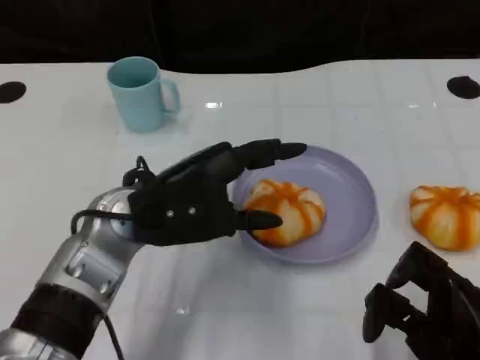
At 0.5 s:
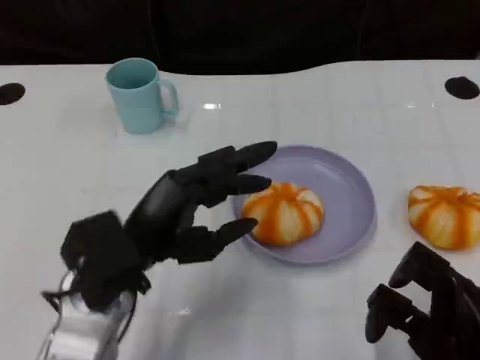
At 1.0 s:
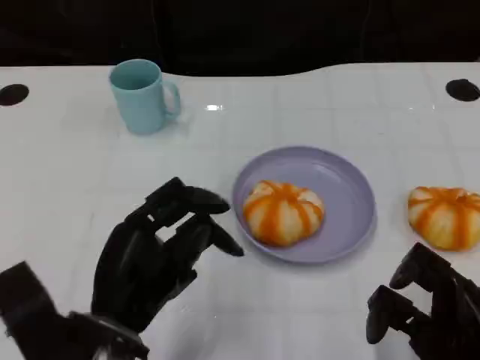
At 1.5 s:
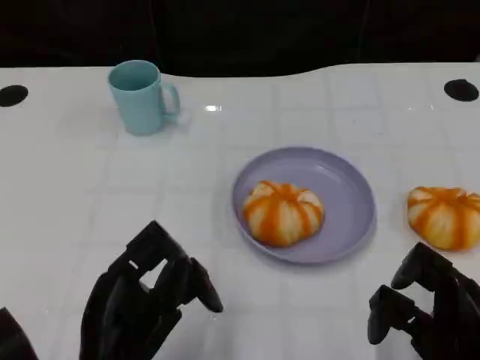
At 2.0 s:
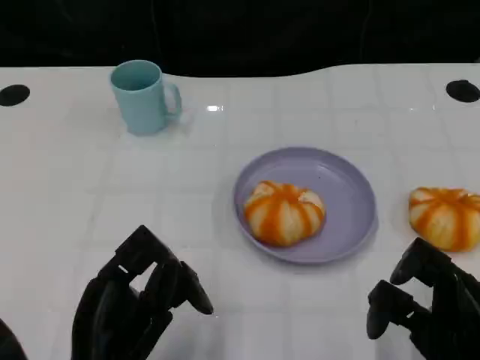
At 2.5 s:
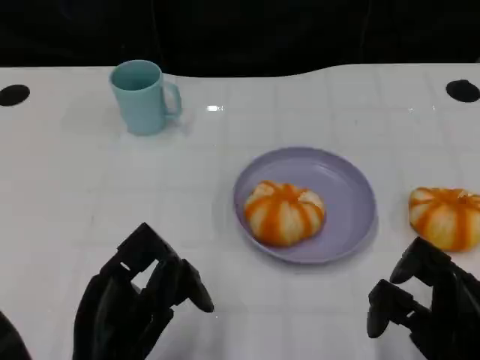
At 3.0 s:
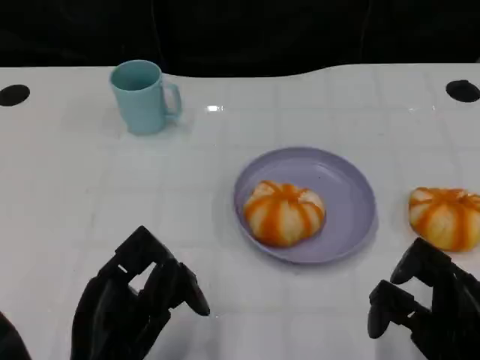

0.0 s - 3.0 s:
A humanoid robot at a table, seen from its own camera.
Task of the whole recording: Grasp the bread from the table and place it into the plate.
0.0 s - 1.5 s: The left hand goes roughly 15 cm backward and downward.
1.5 s - 3.0 s: The two hands keep their place.

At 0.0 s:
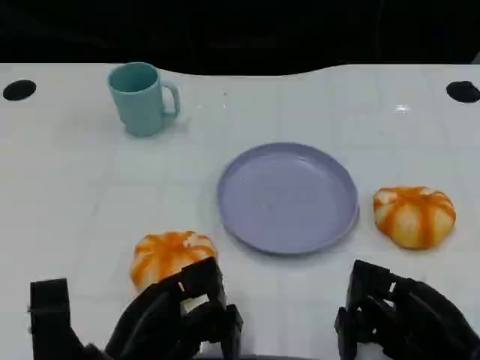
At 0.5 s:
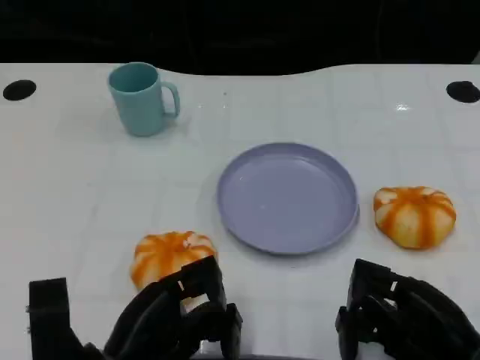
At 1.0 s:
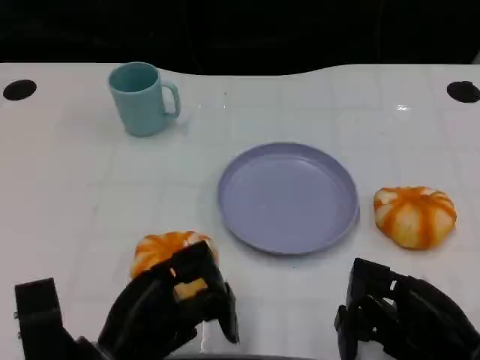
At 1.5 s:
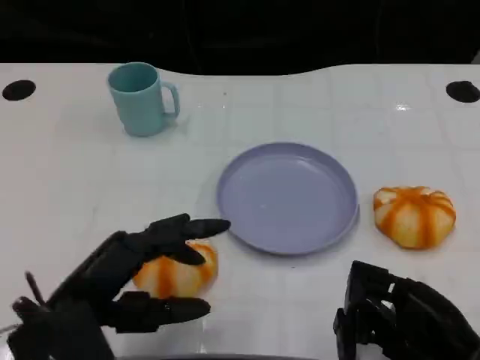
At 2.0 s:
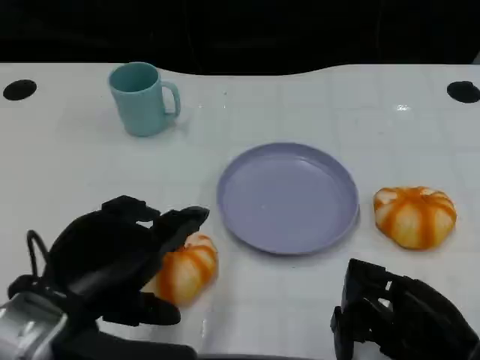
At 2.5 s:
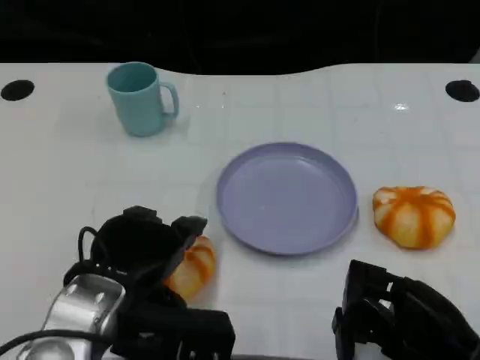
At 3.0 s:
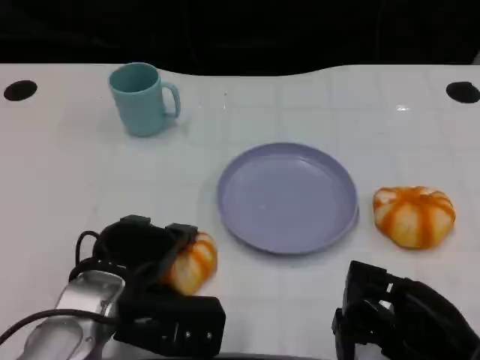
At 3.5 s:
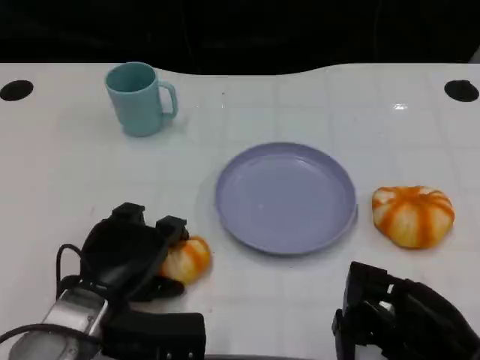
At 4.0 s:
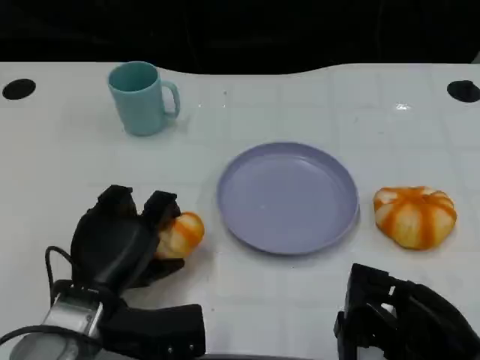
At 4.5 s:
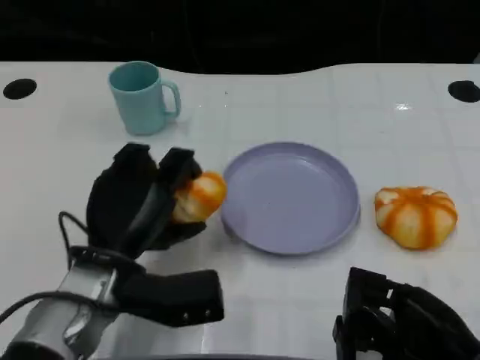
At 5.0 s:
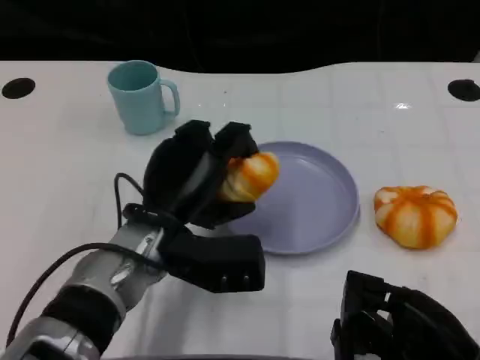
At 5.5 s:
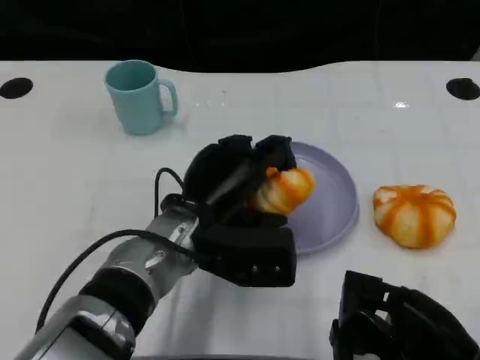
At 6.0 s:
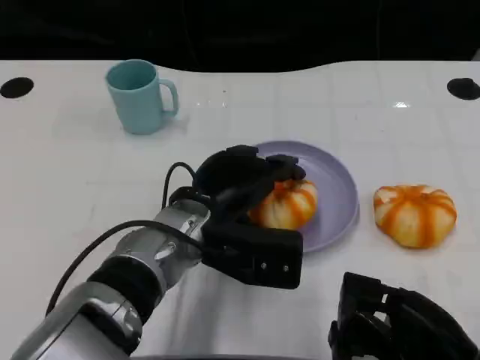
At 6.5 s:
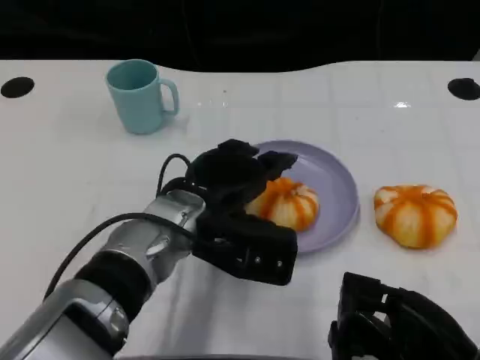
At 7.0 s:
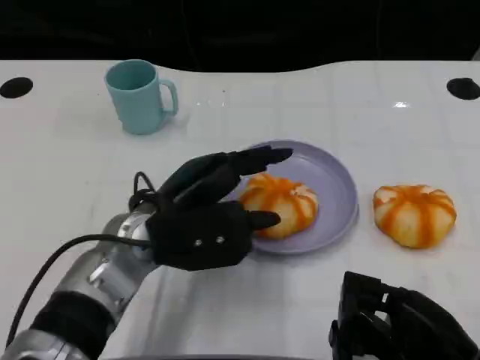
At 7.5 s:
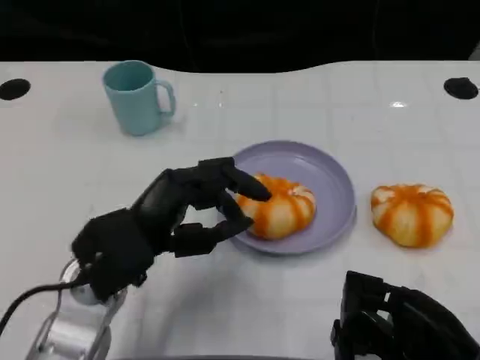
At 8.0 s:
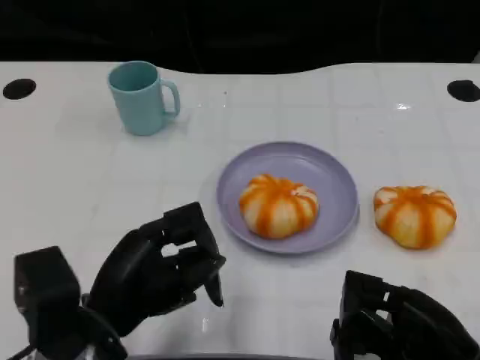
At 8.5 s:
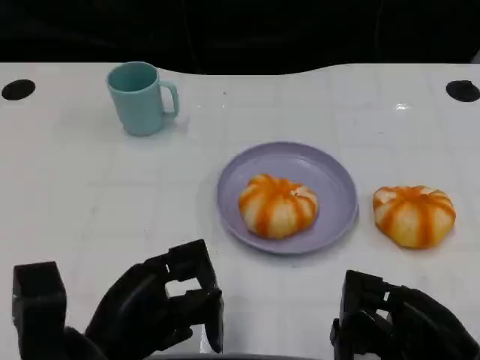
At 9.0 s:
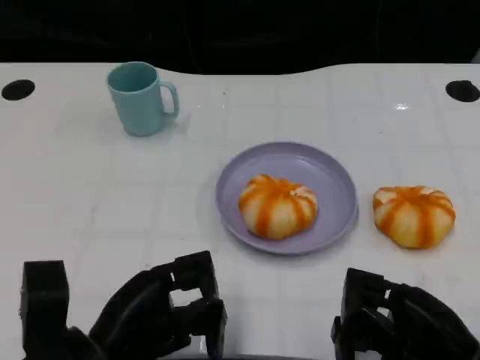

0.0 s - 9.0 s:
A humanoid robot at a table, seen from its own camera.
Task of the whole recording: Grasp the bread from the table and place it into the plate.
0.0 s - 2.0 s: The left hand moves upward, roughly 10 cm.
2.0 s - 4.5 s: The left hand travels forward and downward by roughly 10 cm.
7.0 s - 9.0 s: The left hand heads backward, to the left and downward, covering roughly 15 cm.

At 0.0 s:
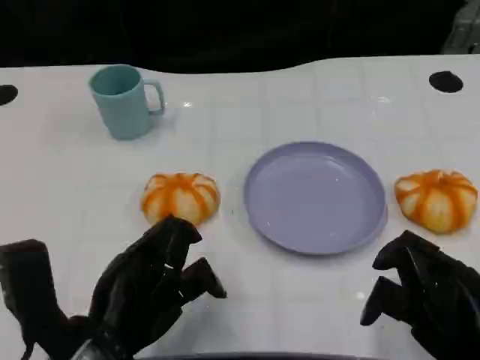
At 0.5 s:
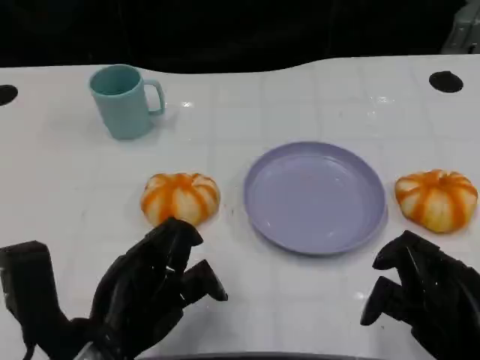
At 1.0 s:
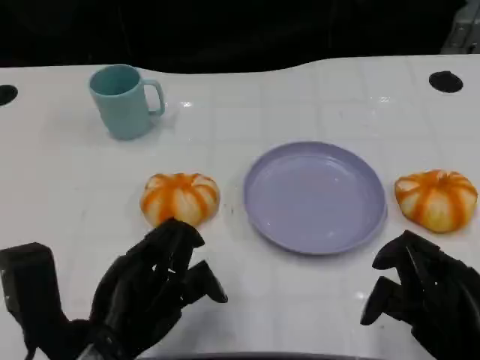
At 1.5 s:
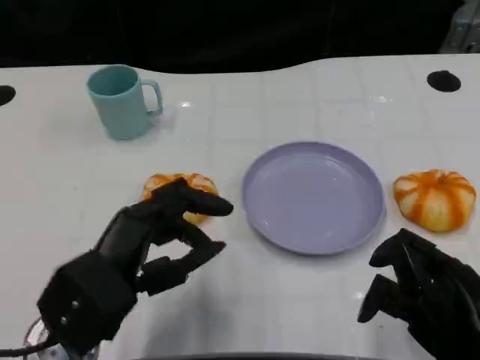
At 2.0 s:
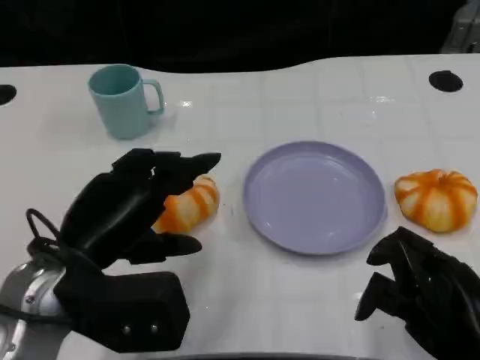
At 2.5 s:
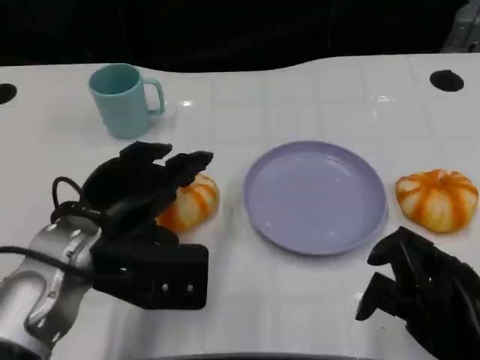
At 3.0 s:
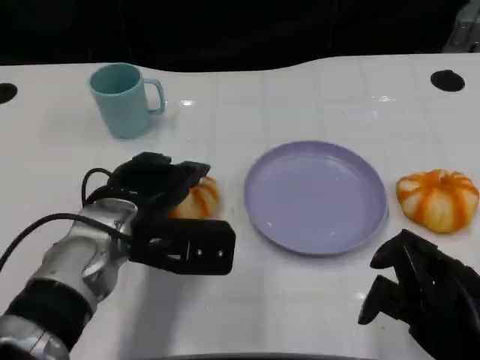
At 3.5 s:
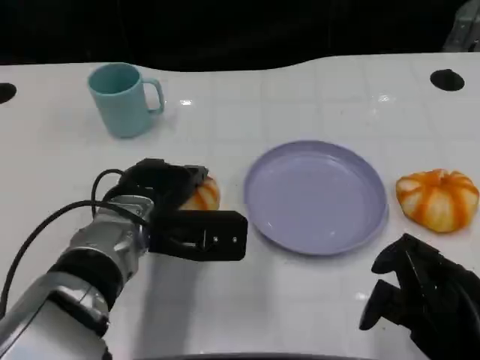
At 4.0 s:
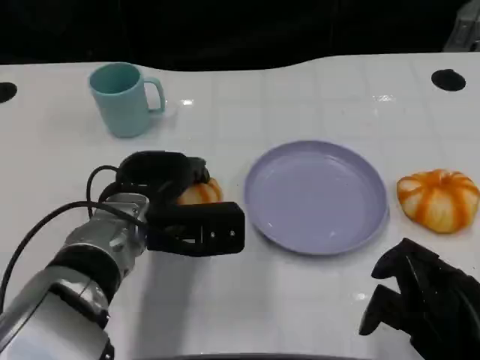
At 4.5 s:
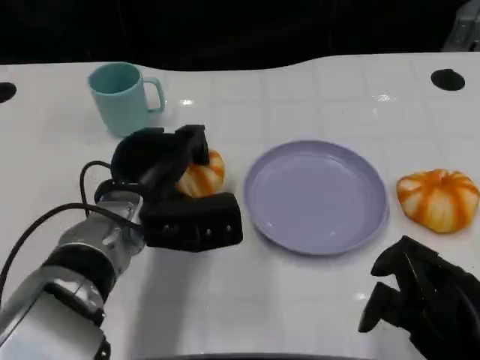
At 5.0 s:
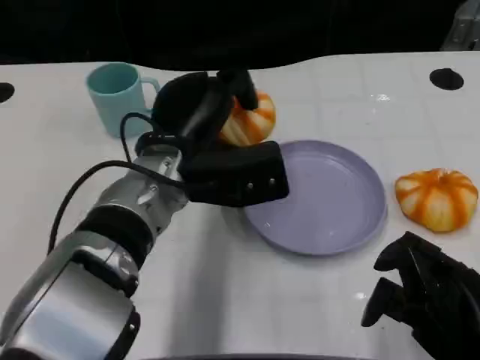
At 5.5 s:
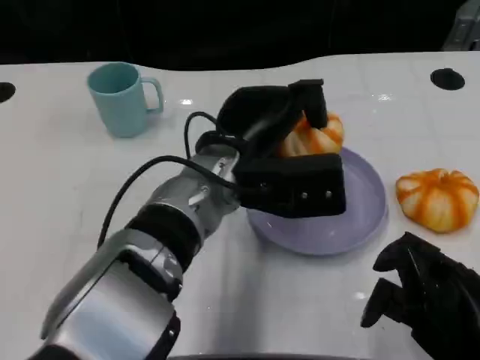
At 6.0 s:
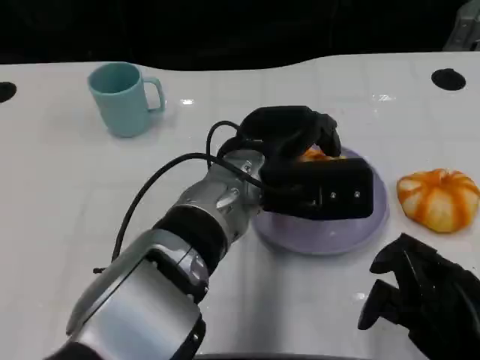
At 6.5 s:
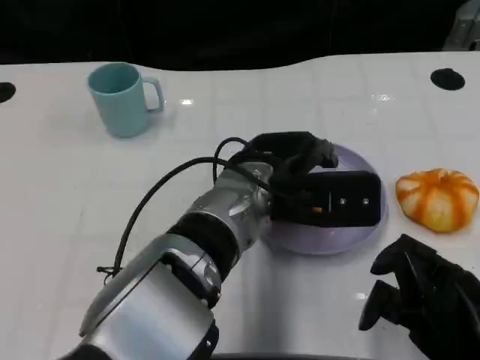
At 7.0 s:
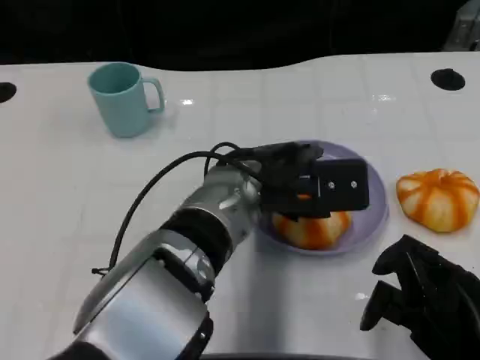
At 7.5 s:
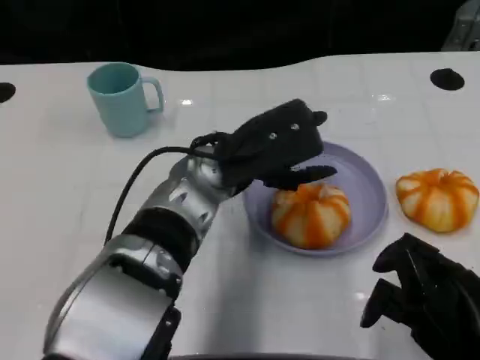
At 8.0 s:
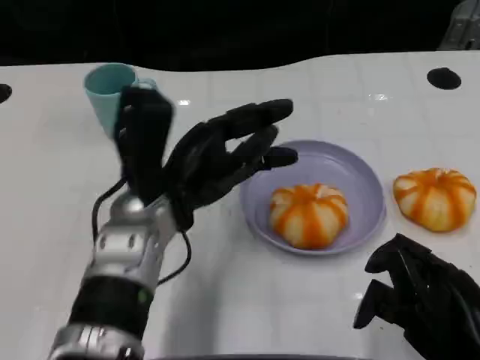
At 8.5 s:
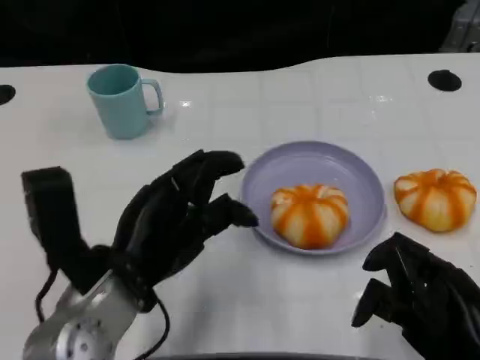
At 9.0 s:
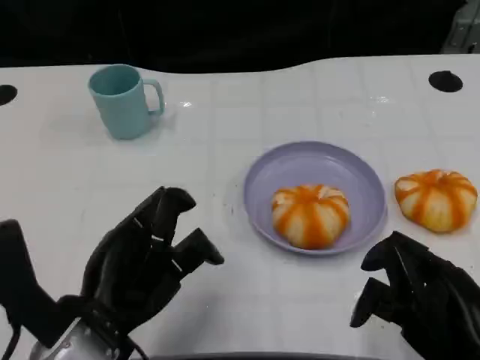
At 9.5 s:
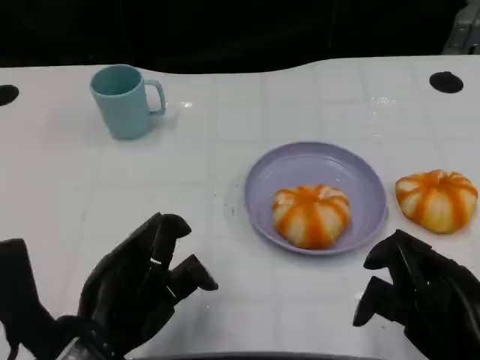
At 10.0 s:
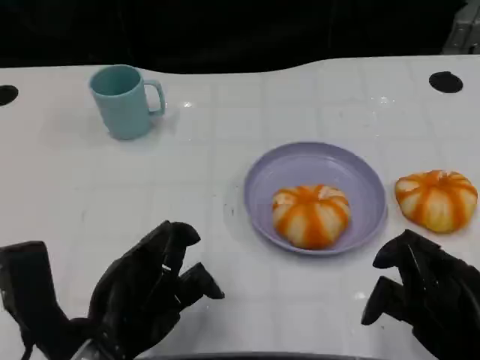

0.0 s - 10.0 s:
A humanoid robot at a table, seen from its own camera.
Task of the whole recording: Grasp the bread from the table and place it into the plate.
0.0 s - 2.0 s: The left hand ends up about 5 cm from where it was.
2.0 s - 4.0 s: The left hand goes roughly 10 cm forward, to the right and downward.
4.0 s - 6.0 s: The left hand shifts approximately 15 cm to the right and upward.
6.0 s - 8.0 s: The left hand shifts approximately 10 cm to the left.
8.0 s - 10.0 s: The left hand heads backward and to the left, covering some 15 cm.

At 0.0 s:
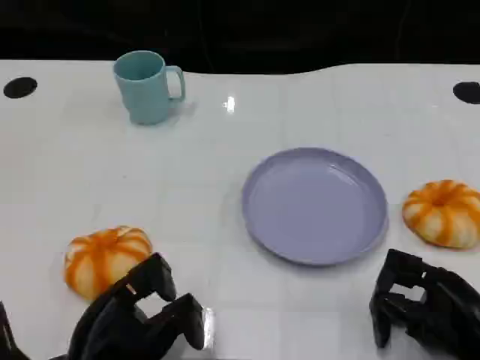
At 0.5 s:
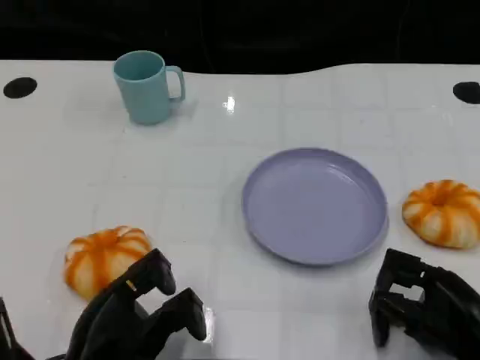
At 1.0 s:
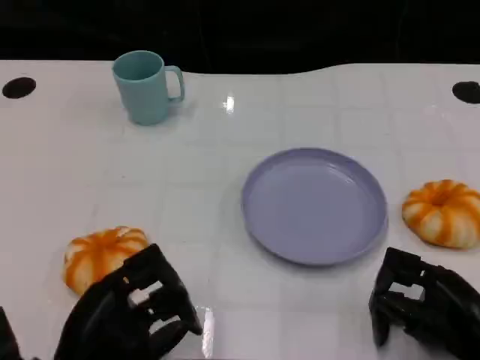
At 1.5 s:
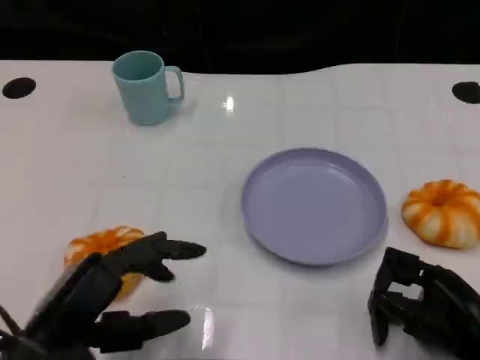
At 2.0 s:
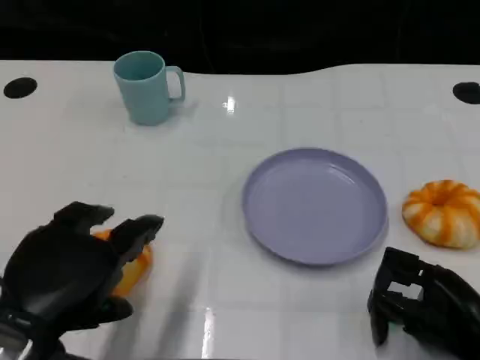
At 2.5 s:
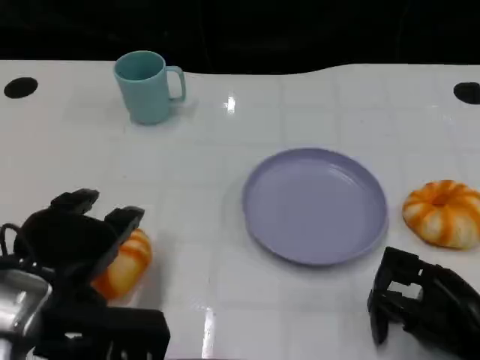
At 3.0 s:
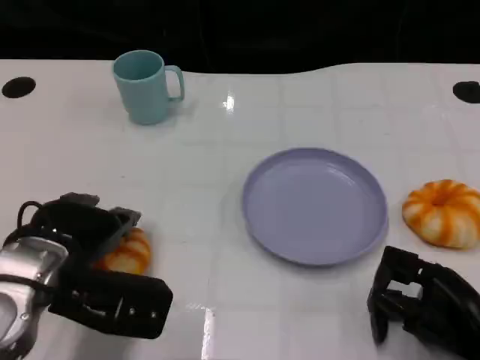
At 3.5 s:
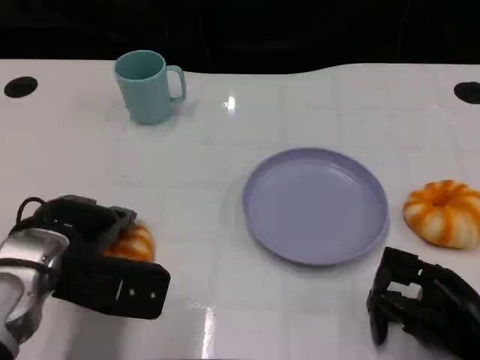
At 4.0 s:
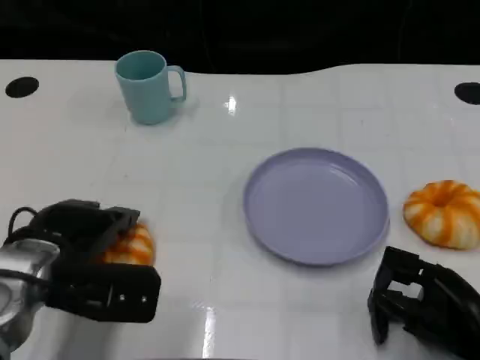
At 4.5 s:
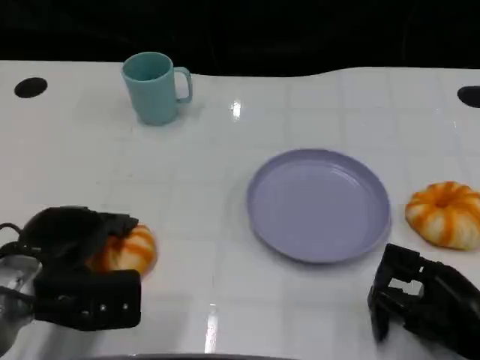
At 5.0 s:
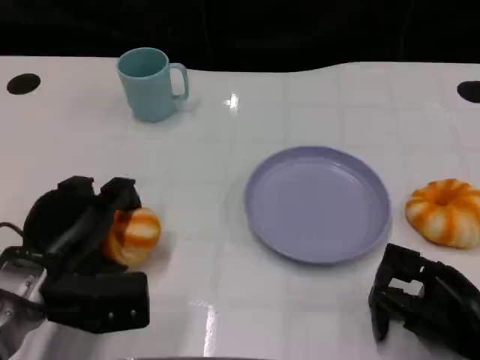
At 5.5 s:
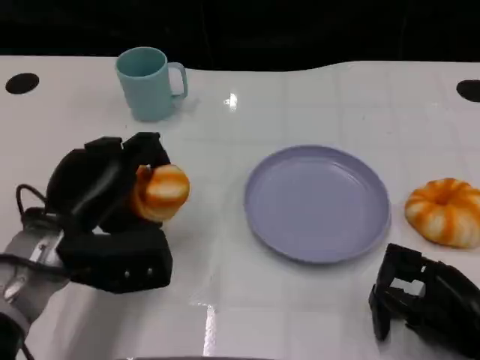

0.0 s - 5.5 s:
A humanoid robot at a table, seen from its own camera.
Task of the whole recording: Grasp the bread from the table and place it into the plate.
0.0 s - 2.0 s: The left hand moves upward, some 10 cm.
2.0 s - 3.5 s: The left hand heads forward, covering some 10 cm.
